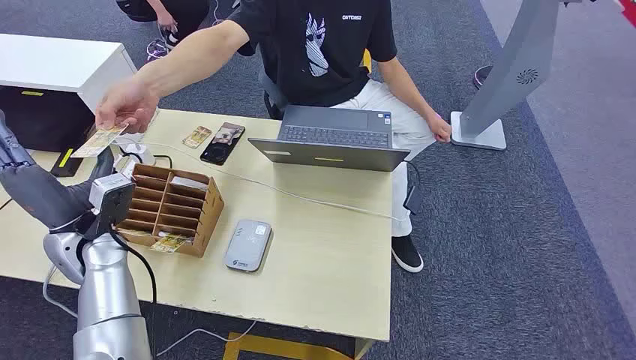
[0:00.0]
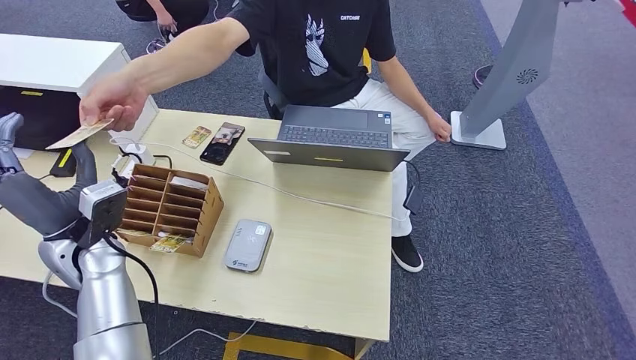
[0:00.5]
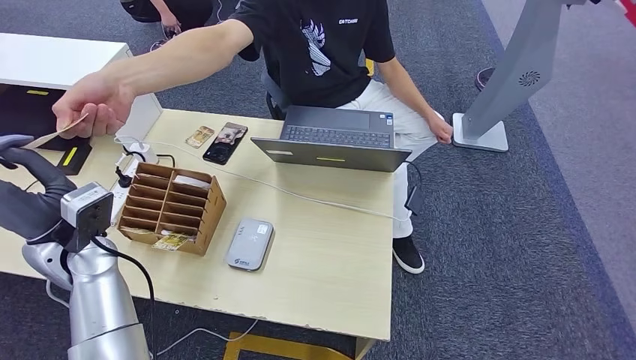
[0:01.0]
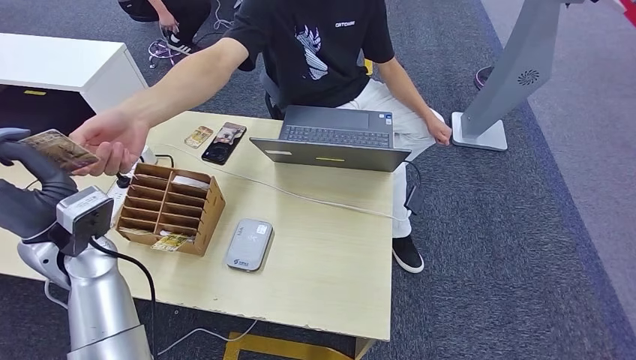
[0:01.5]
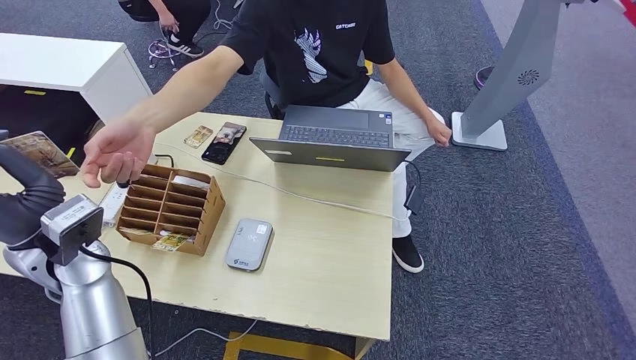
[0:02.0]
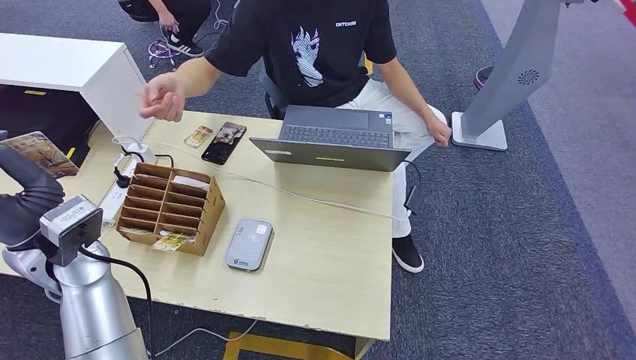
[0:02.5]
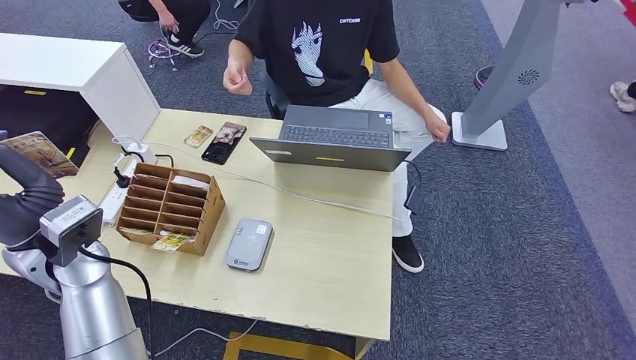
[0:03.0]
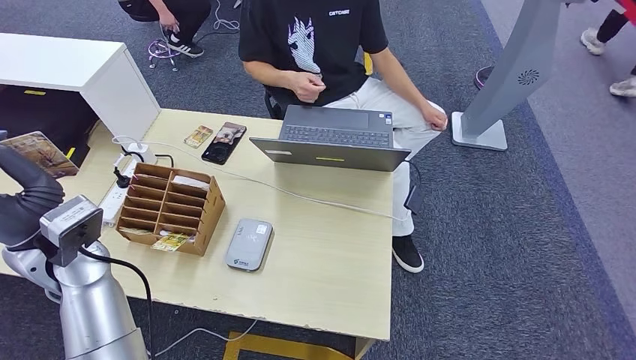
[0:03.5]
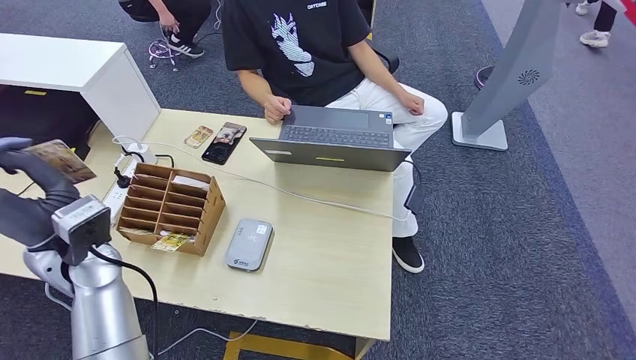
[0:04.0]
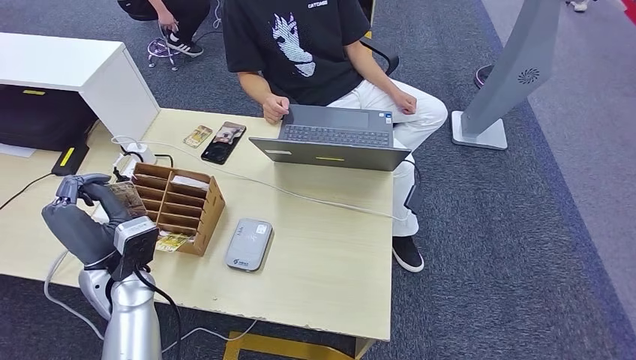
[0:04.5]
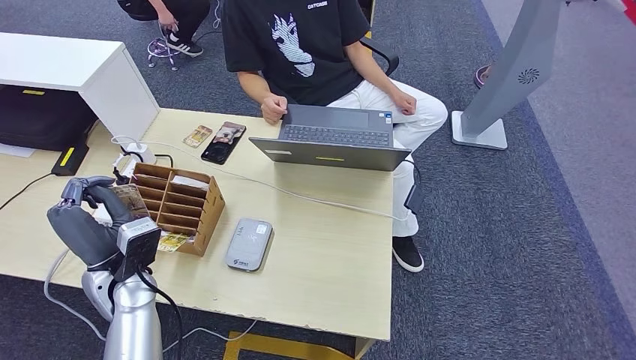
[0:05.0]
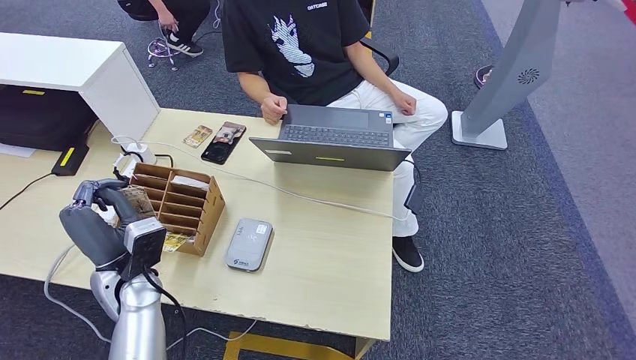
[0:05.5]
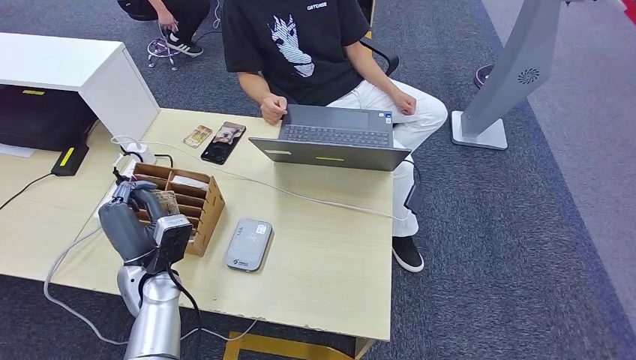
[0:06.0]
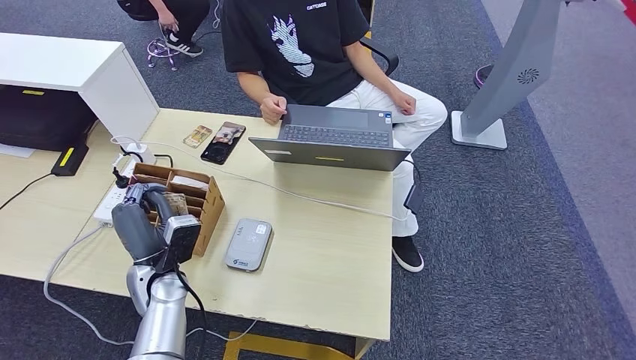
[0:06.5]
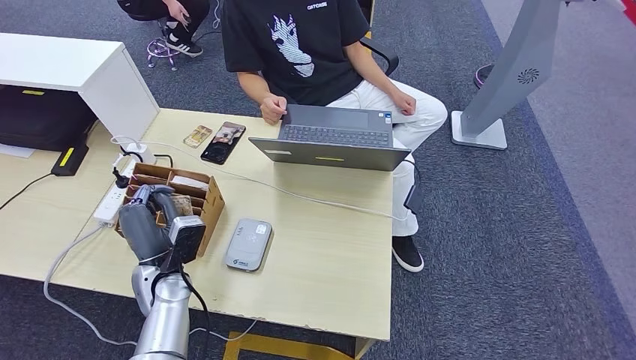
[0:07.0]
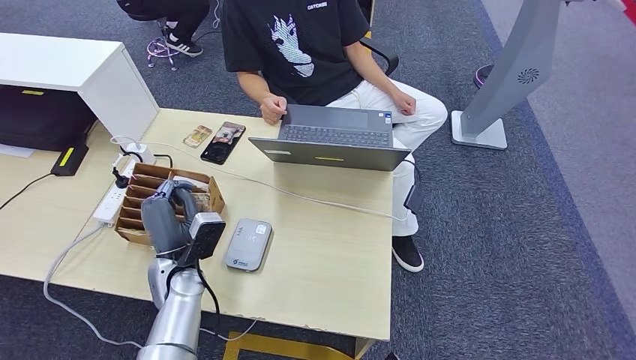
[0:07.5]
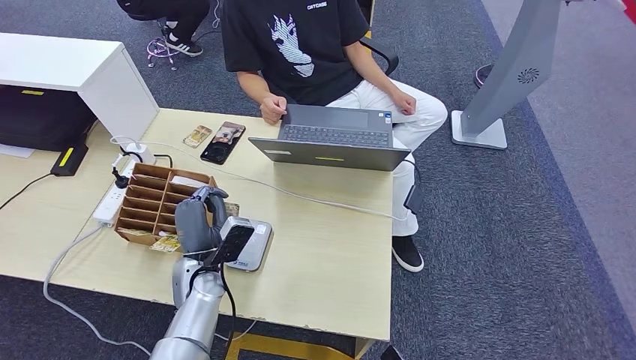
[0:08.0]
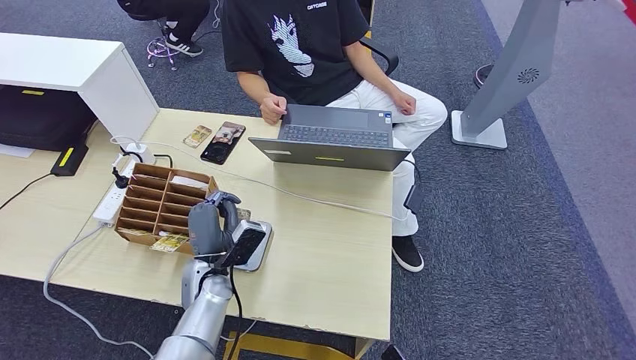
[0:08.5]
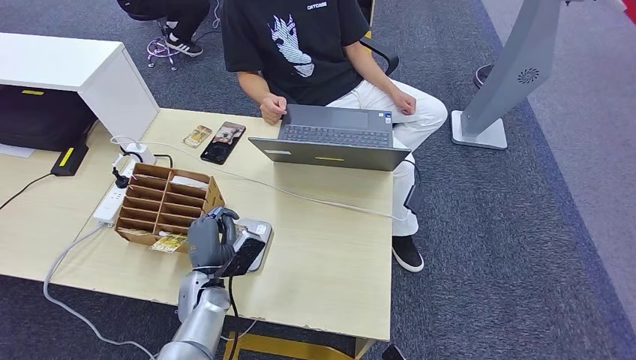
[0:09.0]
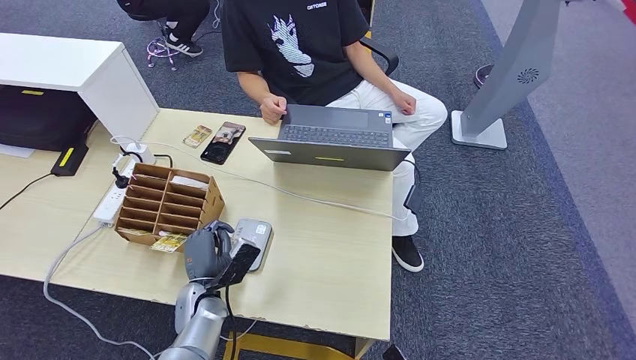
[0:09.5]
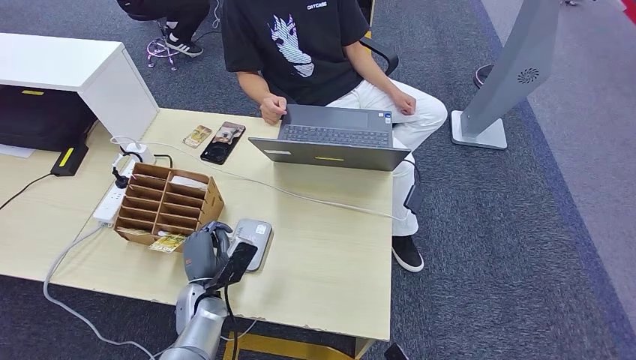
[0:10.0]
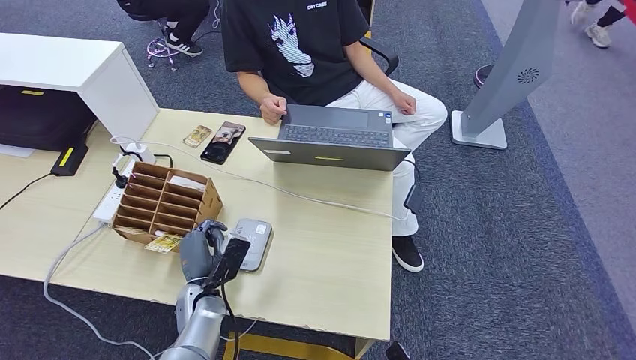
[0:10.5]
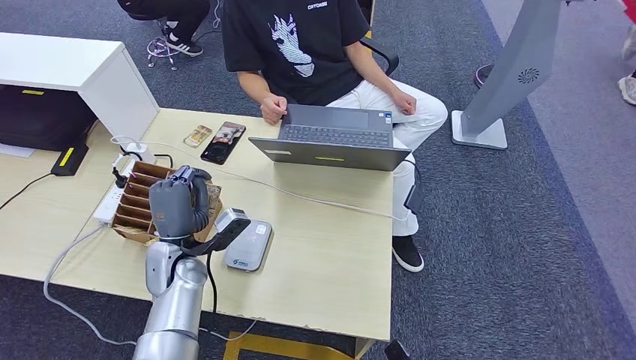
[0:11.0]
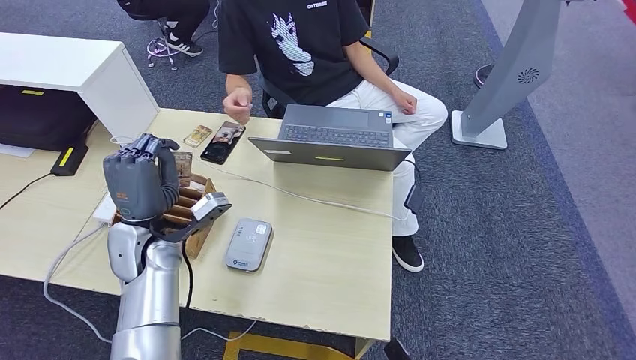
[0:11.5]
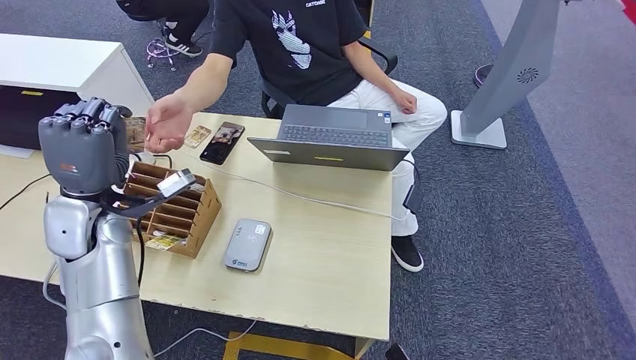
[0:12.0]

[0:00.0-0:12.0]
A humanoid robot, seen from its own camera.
Step, 0:00.0 to 0:02.5: Take the ID card from the person's hand.
Step, 0:03.0 to 0:10.5: Place the ID card on the card reader.
0:02.0 to 0:04.0: The hands move only a little.
0:04.0 to 0:06.0: The left hand moves downward, roughly 15 cm.
0:06.0 to 0:08.0: The left hand goes about 5 cm to the right.
0:08.0 to 0:10.0: The left hand shifts some 5 cm downward.
0:10.0 to 0:12.0: The left hand moves upward and to the left, roughly 25 cm.

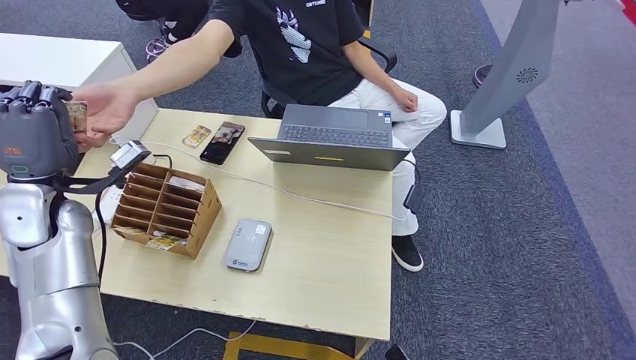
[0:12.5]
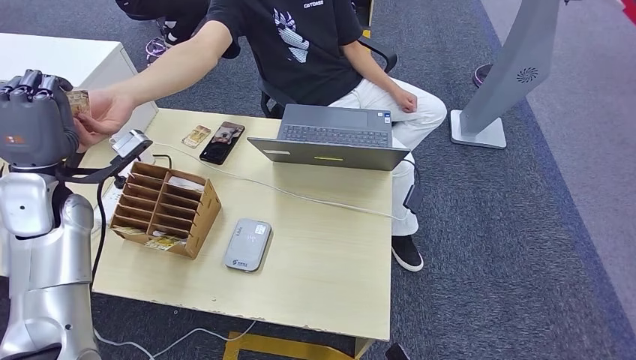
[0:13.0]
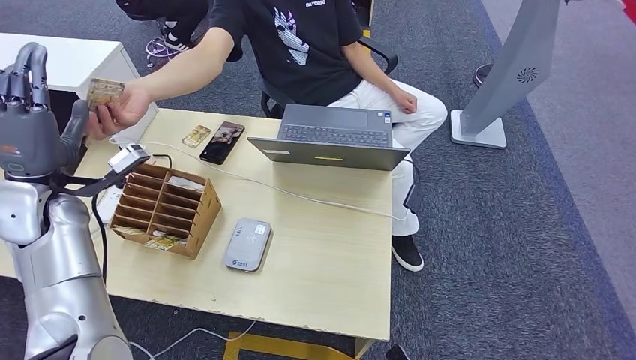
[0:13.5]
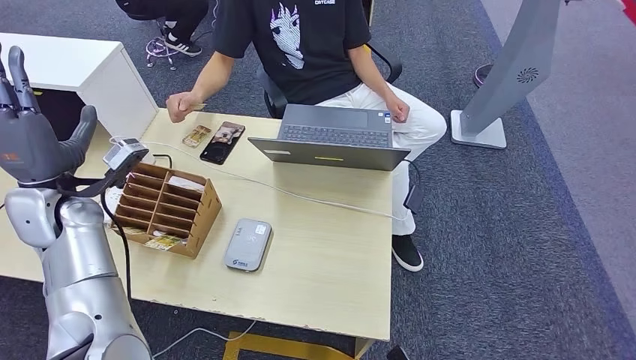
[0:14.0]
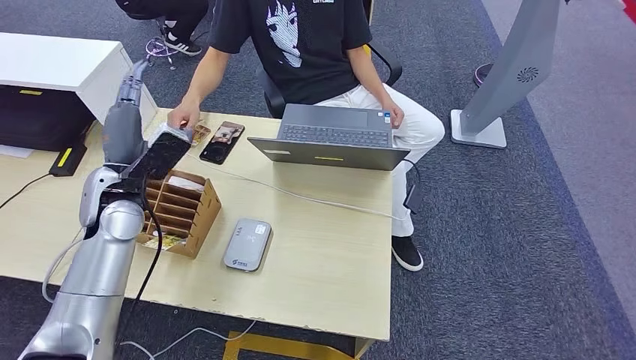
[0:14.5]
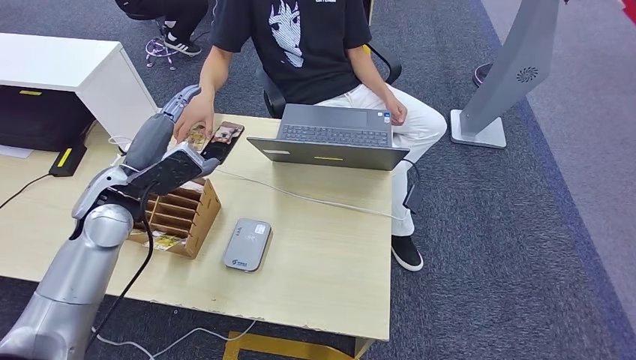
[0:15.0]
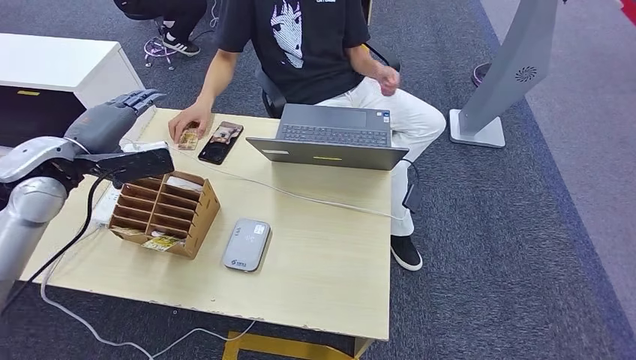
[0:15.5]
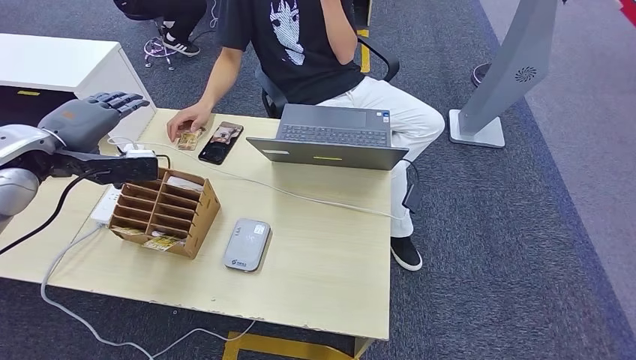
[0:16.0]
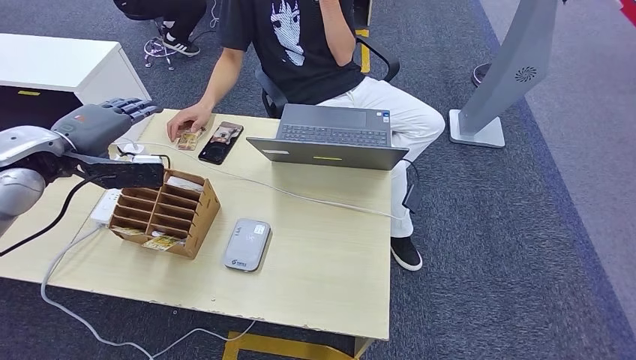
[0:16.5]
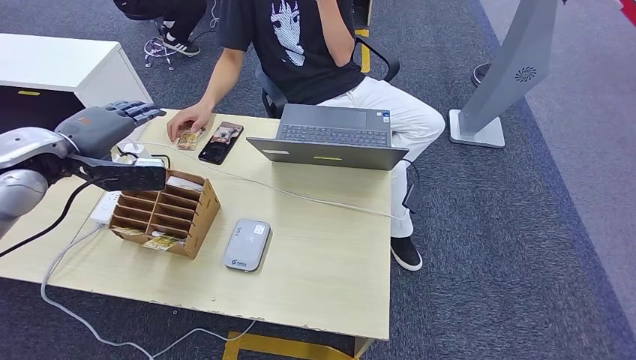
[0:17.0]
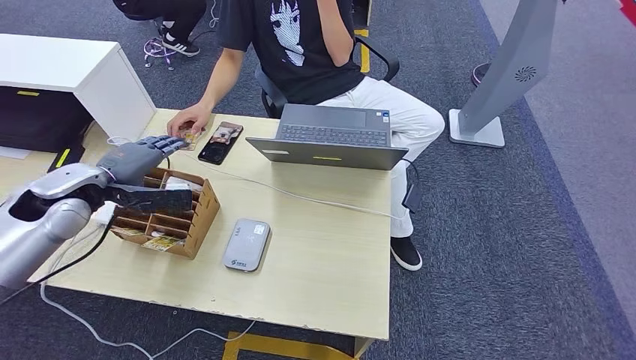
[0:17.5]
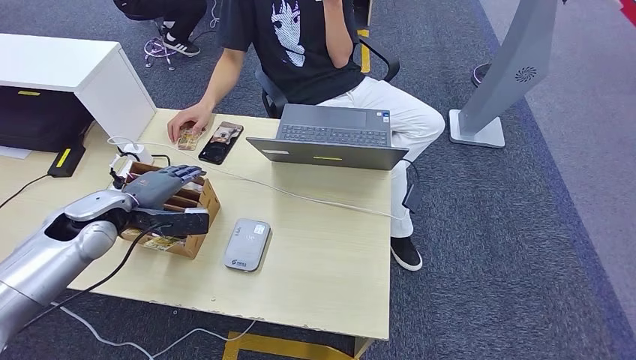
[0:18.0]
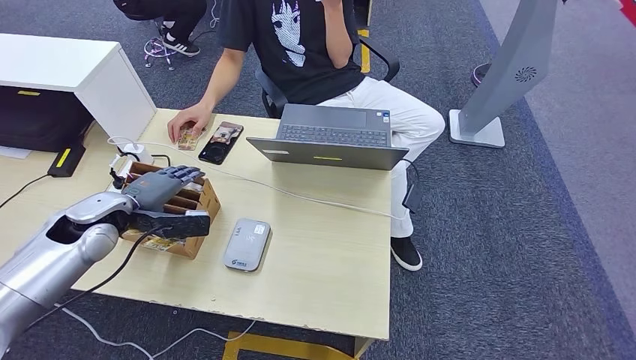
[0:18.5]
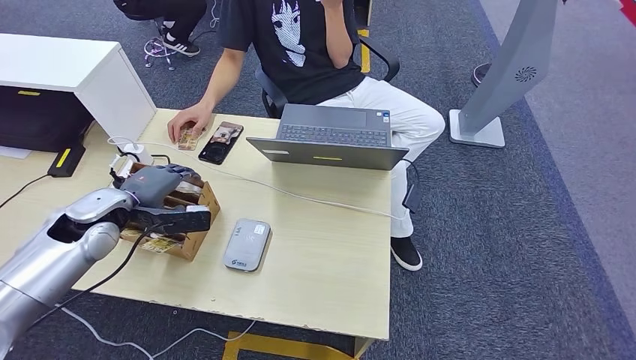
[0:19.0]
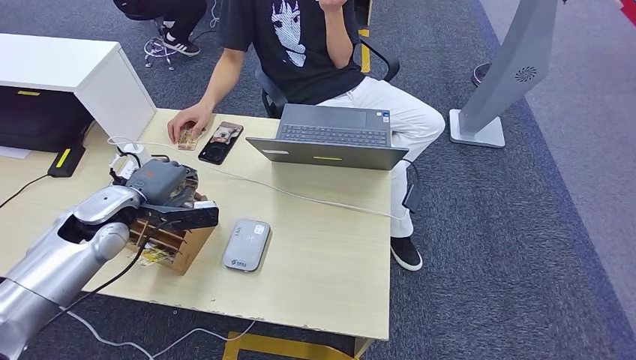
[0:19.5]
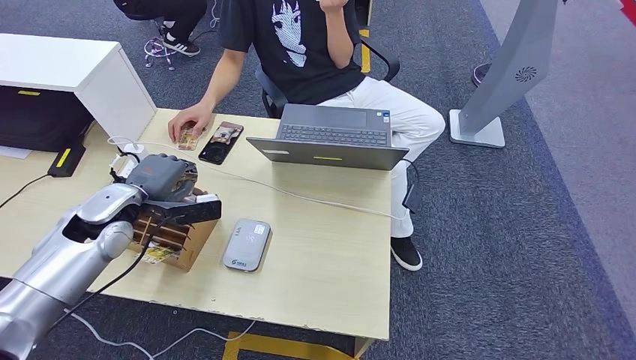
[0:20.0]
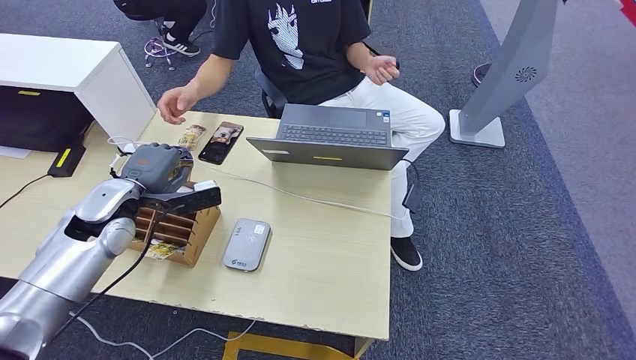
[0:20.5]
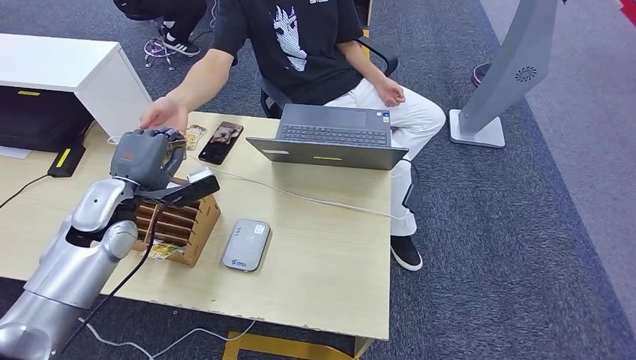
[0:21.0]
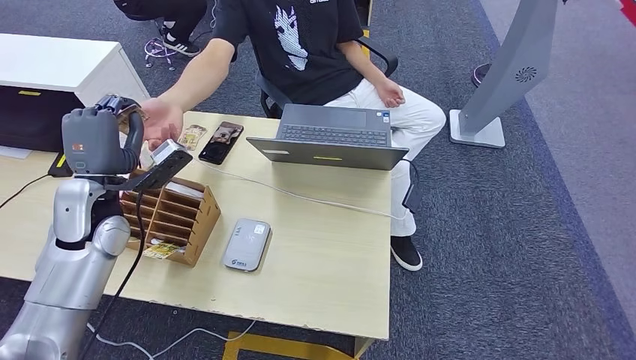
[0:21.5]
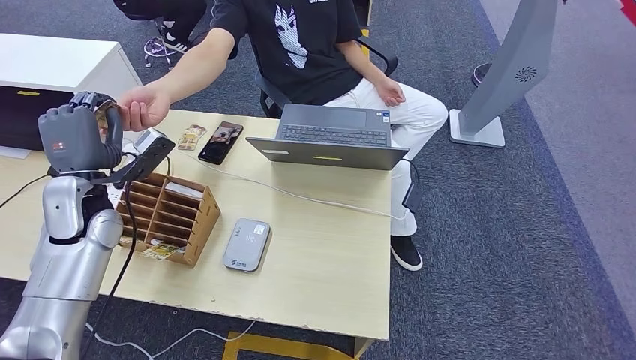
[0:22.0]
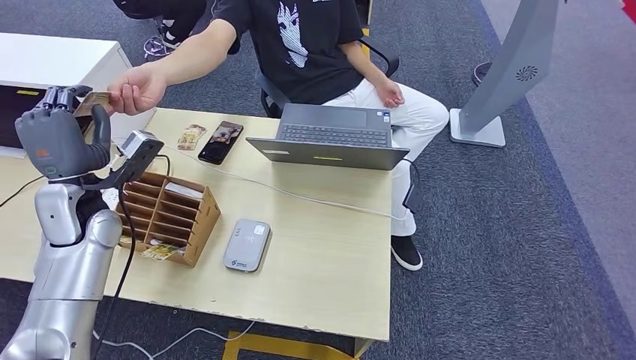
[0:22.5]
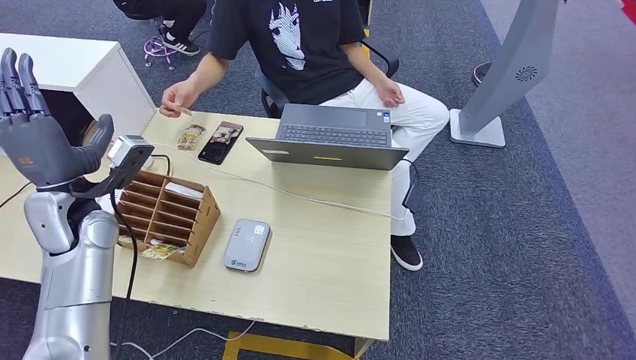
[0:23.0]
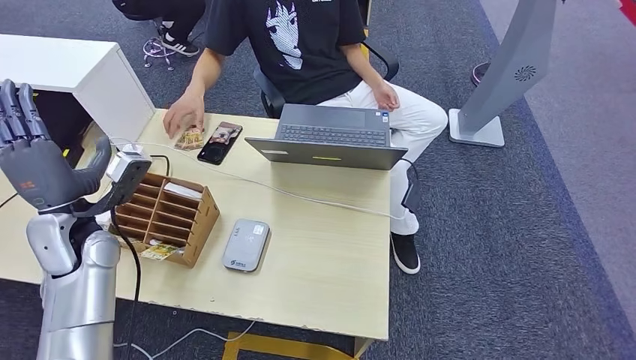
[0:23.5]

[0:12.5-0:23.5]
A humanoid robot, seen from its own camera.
Step, 0:12.5 to 0:15.0: Hand the ID card to the person.
Step, 0:15.5 to 0:20.0: Pick up the room key from the key card box.
0:14.5 to 0:16.0: The left hand is displaced to the left and upward by some 15 cm.
0:16.0 to 0:18.0: The left hand shifts roughly 15 cm downward.
0:18.0 to 0:20.0: The hands stay close to where they were, moving slightly.
